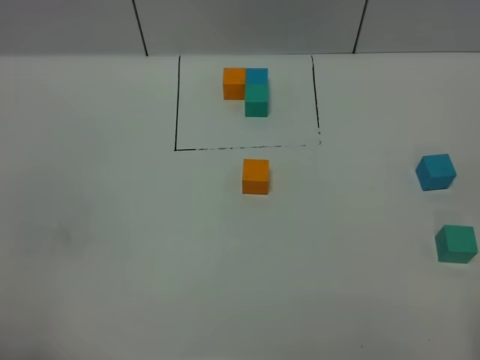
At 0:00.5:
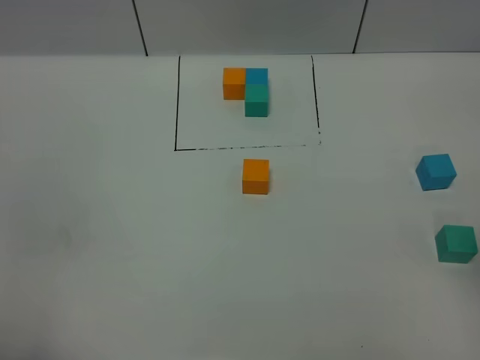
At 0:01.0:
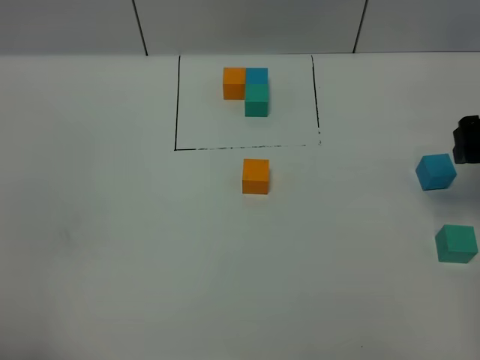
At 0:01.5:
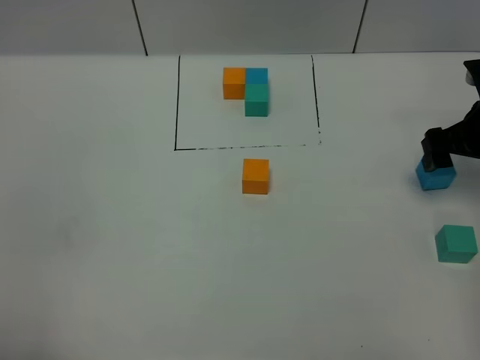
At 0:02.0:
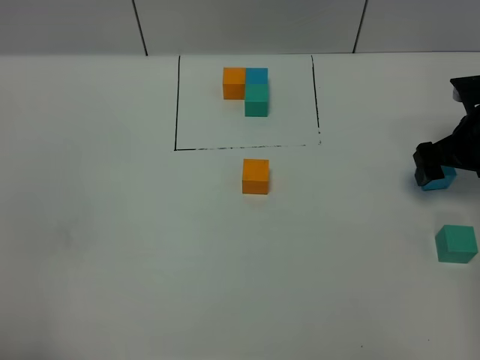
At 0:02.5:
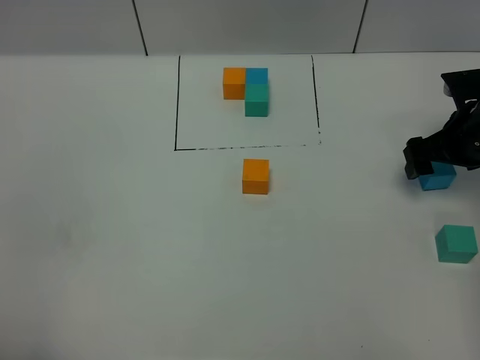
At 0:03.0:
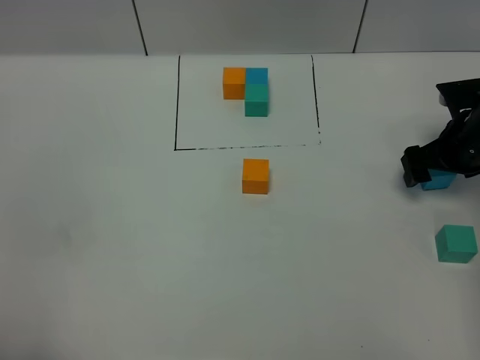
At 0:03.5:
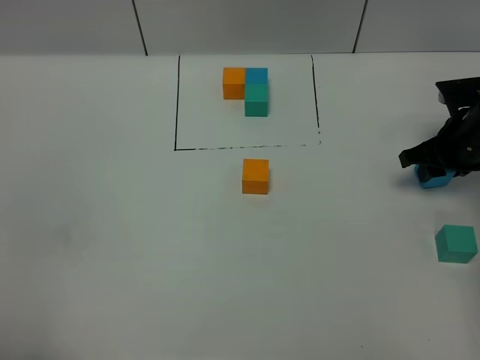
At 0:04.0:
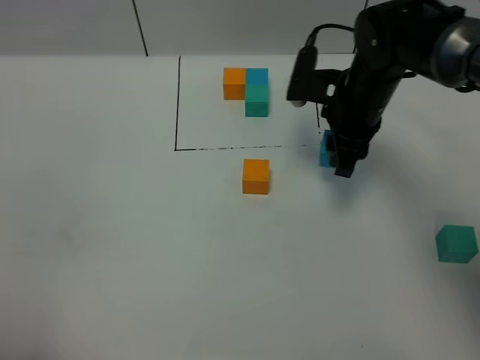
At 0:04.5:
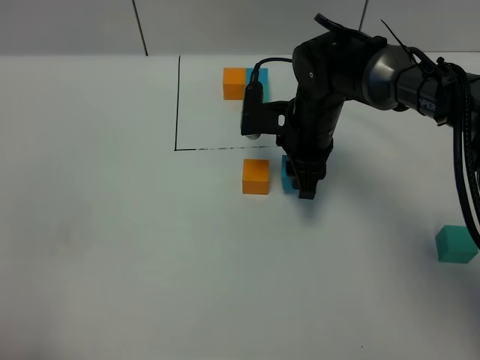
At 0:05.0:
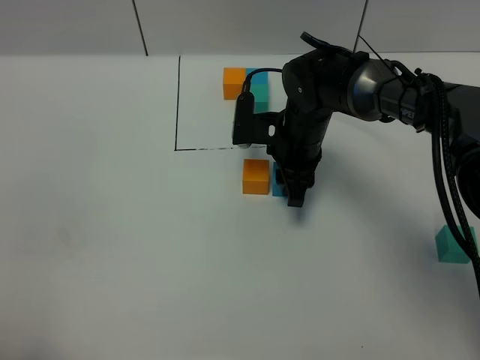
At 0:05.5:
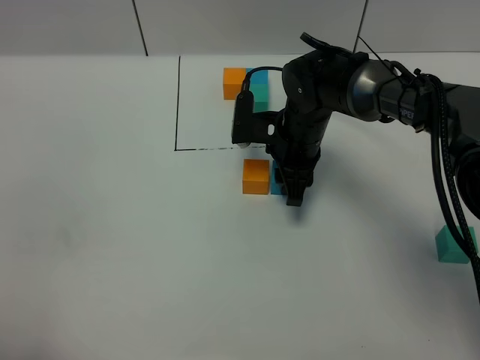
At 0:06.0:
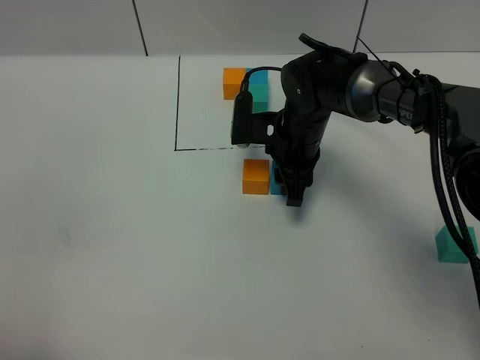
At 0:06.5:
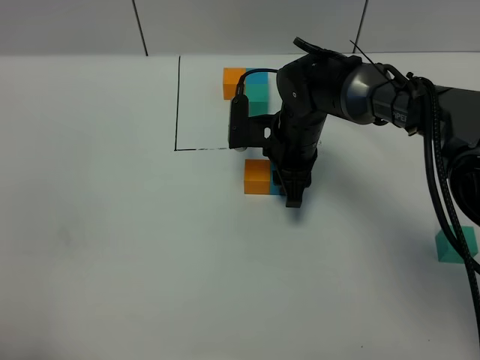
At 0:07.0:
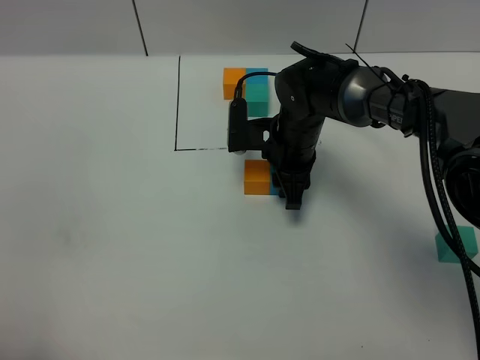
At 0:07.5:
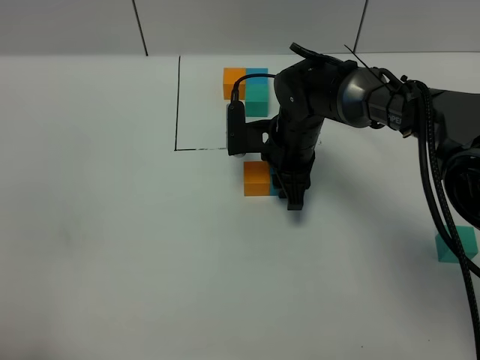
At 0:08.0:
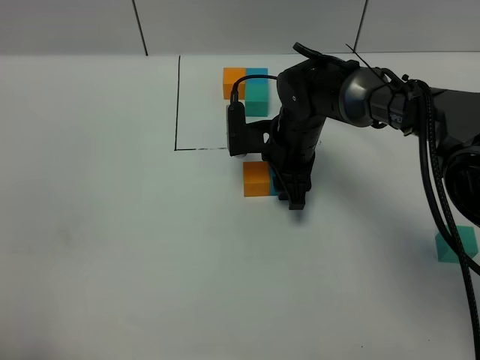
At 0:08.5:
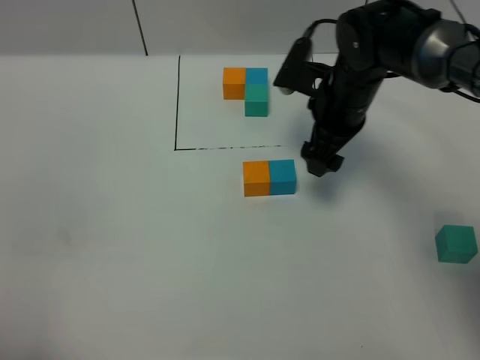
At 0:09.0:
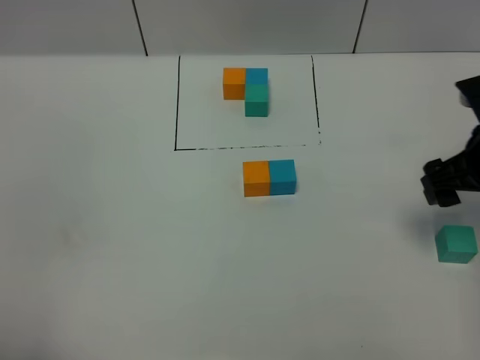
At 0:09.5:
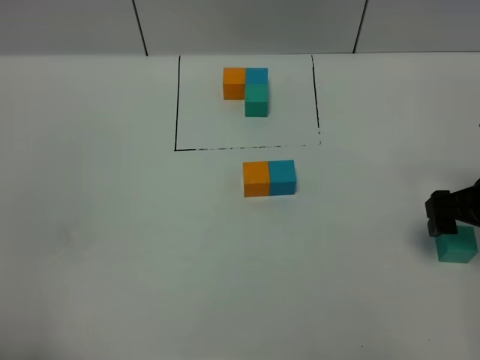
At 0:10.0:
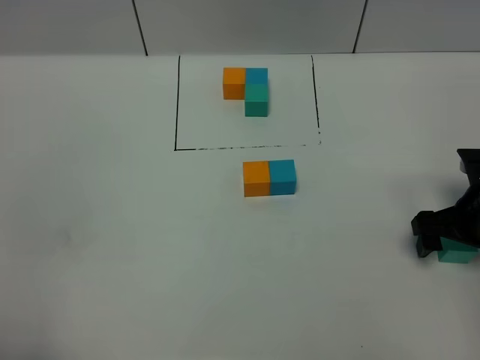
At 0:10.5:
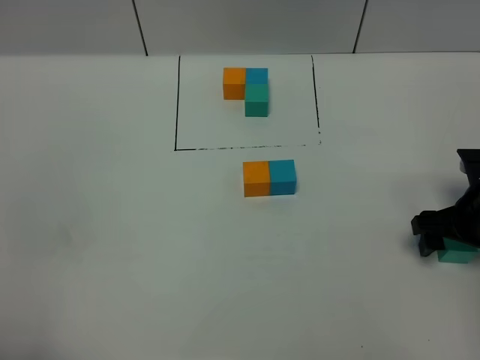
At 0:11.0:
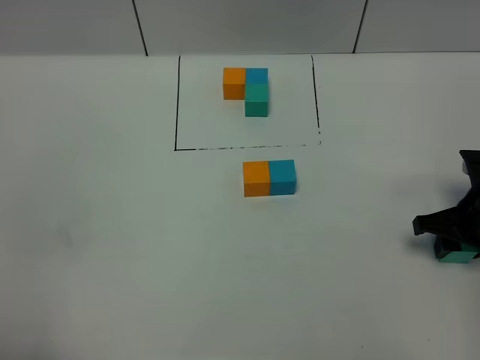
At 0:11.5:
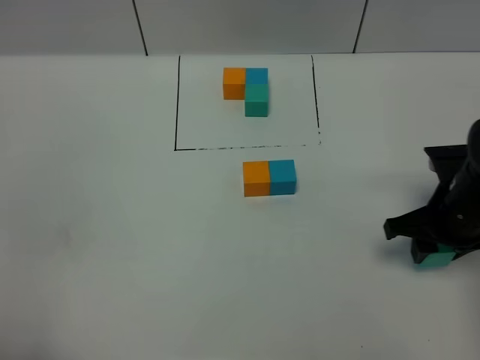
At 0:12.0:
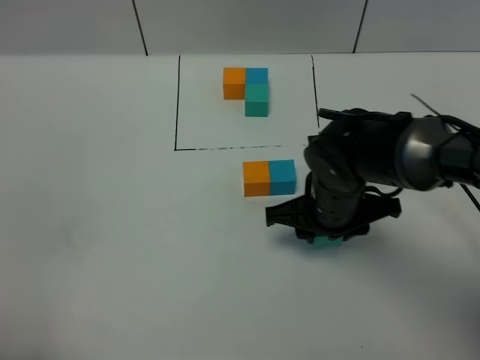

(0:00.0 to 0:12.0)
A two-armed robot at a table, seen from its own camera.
Task of the whole recording: According to the building block template in front, assemble the scattered blocks together.
Step, 0:00.0 - 0:08.0: Put the blue build block on the right of the orange build block.
0:00.0 - 0:02.0: The right gripper travels forward by approximately 35 cm.
0:02.0 - 0:04.0: The right gripper is displaced to the left by some 20 cm, and closes its fingers.
0:04.0 - 0:06.0: The right gripper shifts about 10 cm downward and to the left.
0:06.0 - 0:08.0: There are only small adjustments of the grippers.
0:08.0 - 0:10.0: The right gripper heads to the right and backward, covering roughly 25 cm, and opens its fingers.
0:10.0 - 0:12.0: The right gripper heads to the left, covering some 20 cm, and closes up.

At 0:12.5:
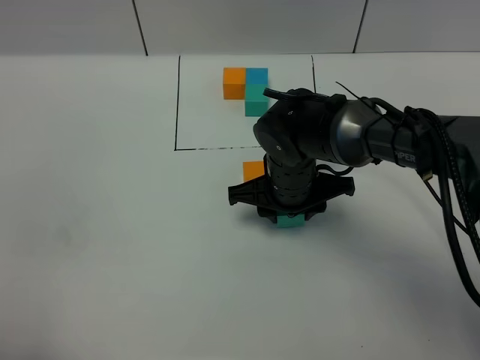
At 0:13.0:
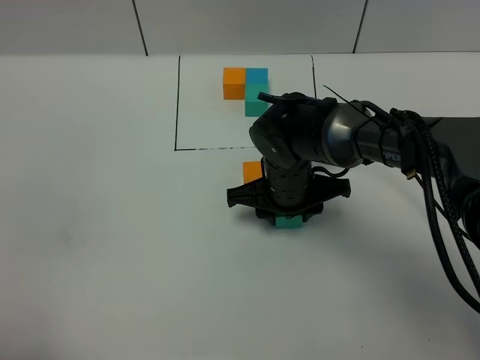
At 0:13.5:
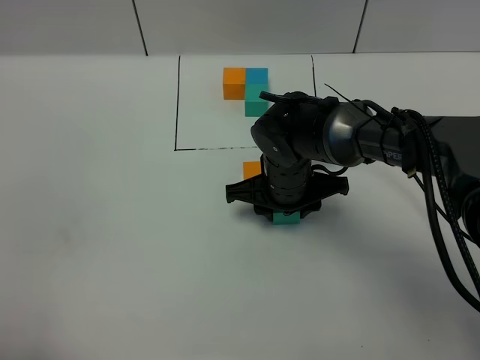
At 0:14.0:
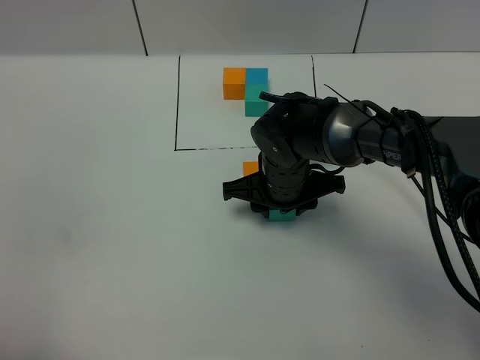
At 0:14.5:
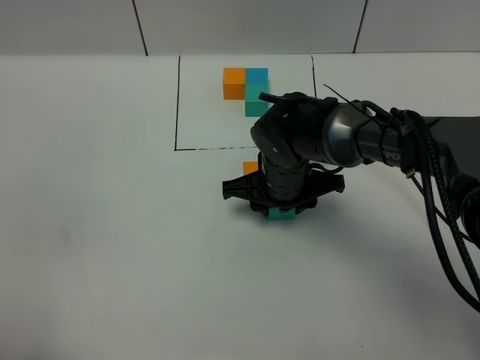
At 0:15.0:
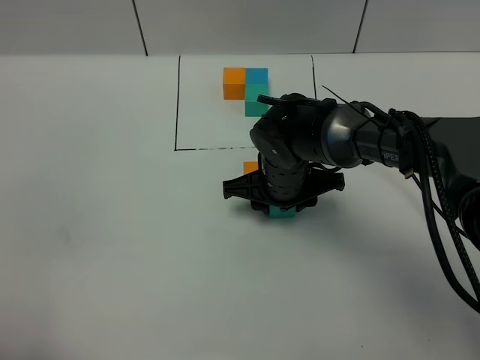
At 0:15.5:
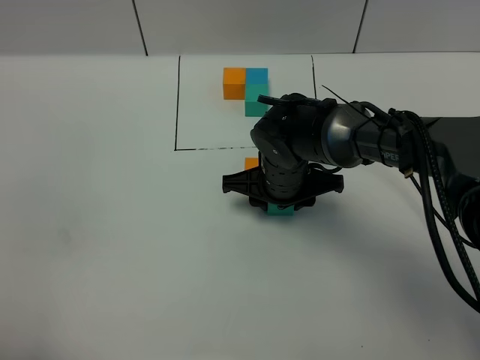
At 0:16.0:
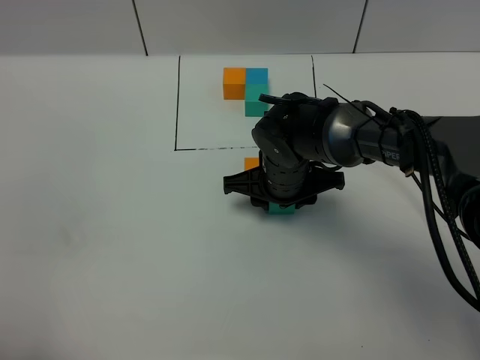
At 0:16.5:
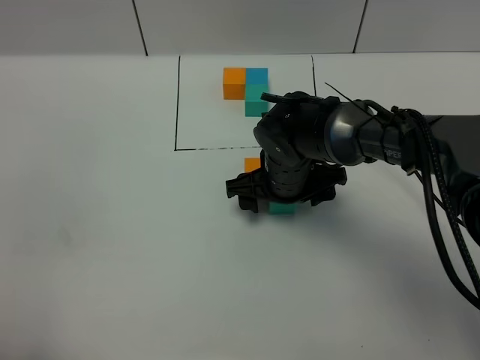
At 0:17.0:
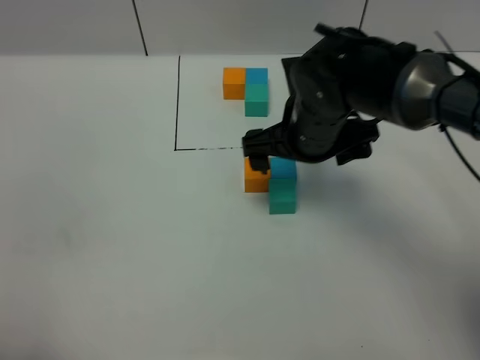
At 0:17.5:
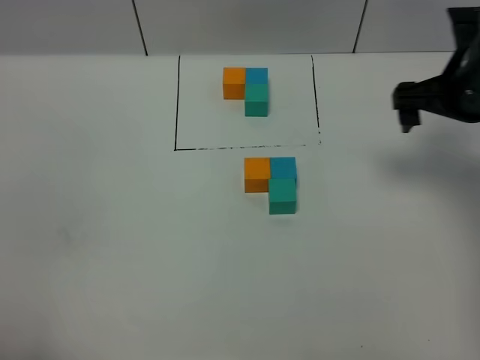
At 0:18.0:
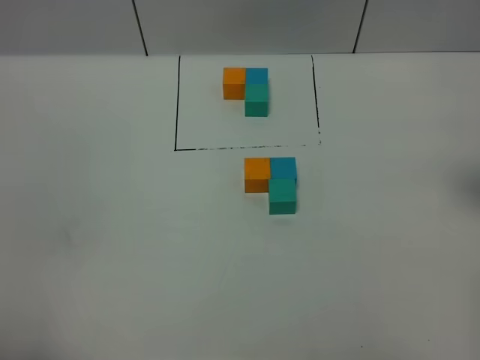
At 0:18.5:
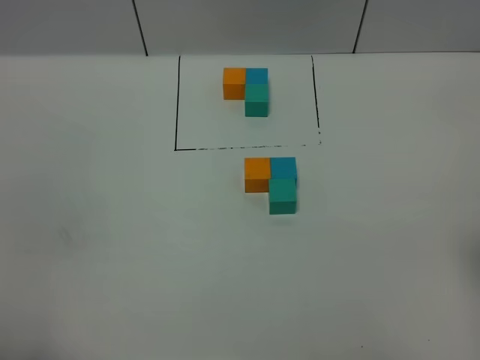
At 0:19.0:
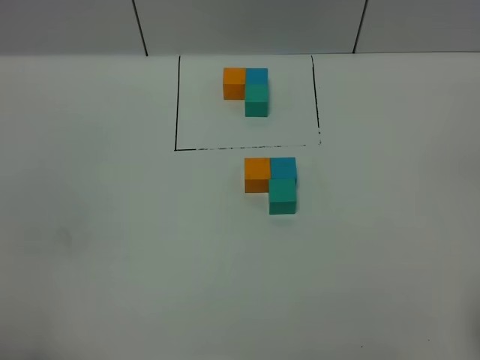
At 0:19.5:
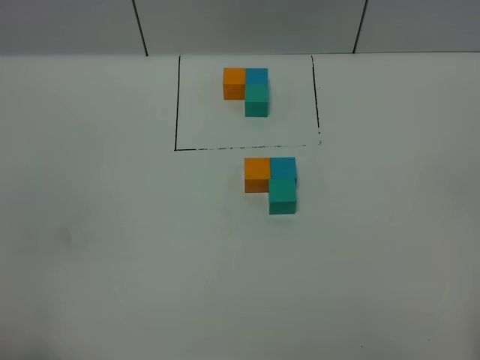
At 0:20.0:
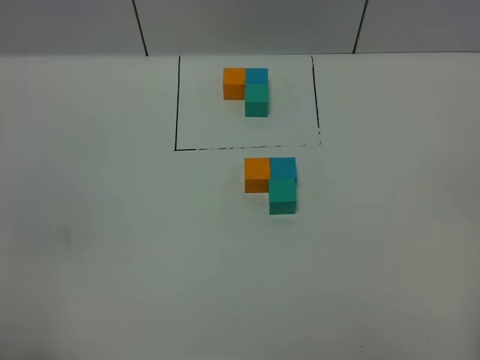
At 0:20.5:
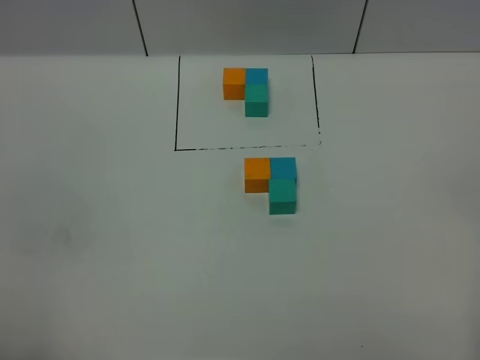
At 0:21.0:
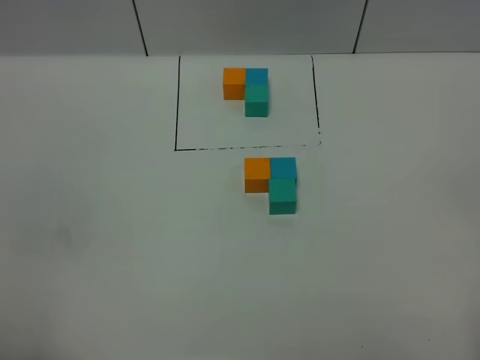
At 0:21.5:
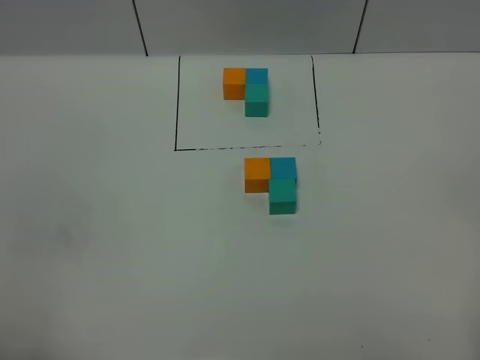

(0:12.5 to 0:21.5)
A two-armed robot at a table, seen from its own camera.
Task of the whole recording: According to the building block template in front, assemble the scattered blocks together.
Step, 0:12.5 - 0:16.0: Put the greem build block on the behind of the blue build block.
0:12.5 - 0:14.5: The grippers move only a little.
0:14.5 - 0:17.0: The right gripper is displaced upward by approximately 10 cm, and opens up.
0:17.0 - 0:19.5: The right gripper is displaced backward and to the right by roughly 40 cm.
0:19.5 - 0:21.5: The two grippers keep their place.
